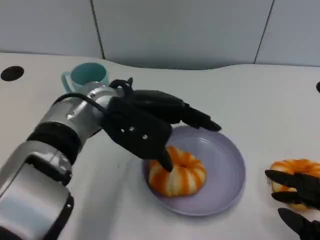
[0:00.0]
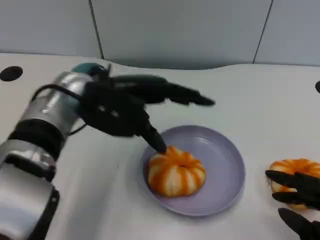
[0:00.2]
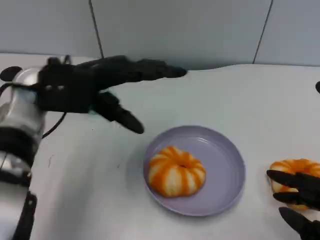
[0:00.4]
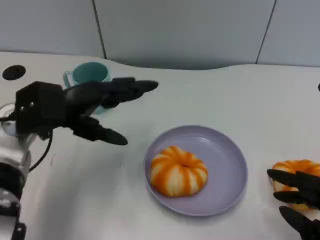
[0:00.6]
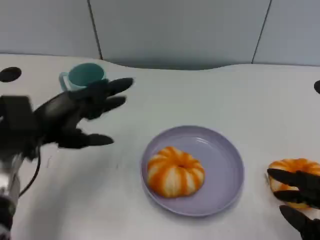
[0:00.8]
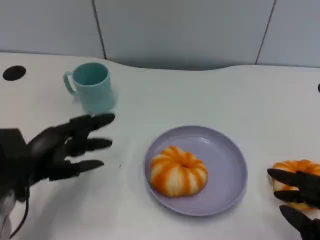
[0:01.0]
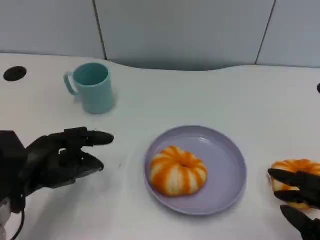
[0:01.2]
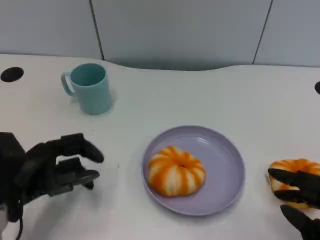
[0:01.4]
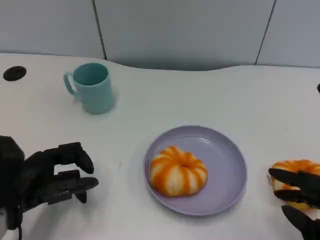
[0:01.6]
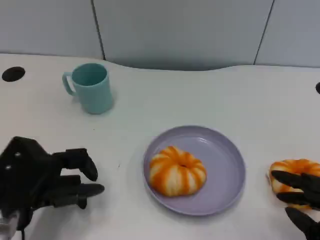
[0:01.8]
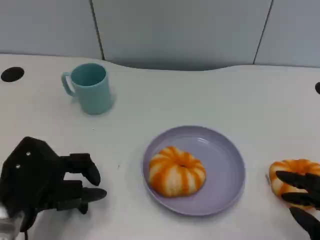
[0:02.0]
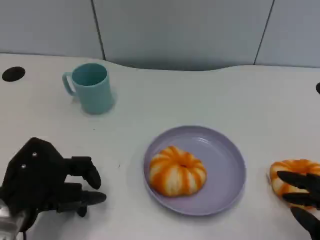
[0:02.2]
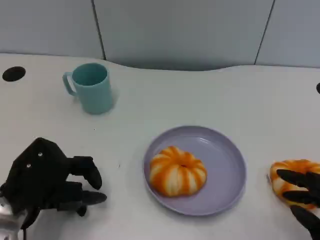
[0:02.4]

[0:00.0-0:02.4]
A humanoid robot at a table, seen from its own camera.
Task of the whole recording: Grasp the bread from the table and place it into the plate.
0:00.0 to 0:01.2: The left hand moves to the left, backward and downward, roughly 20 cm.

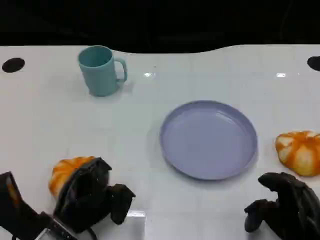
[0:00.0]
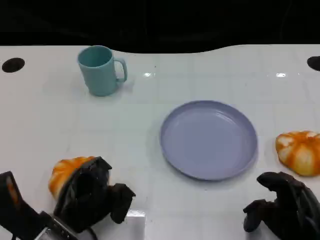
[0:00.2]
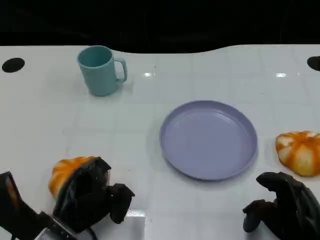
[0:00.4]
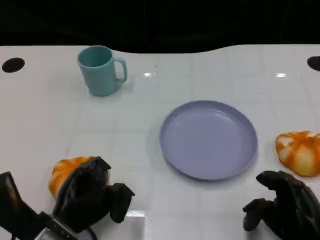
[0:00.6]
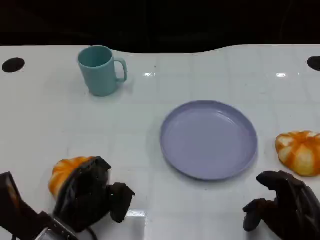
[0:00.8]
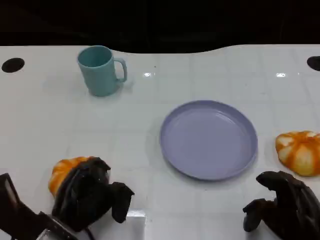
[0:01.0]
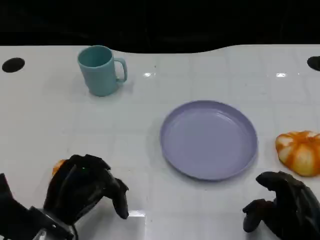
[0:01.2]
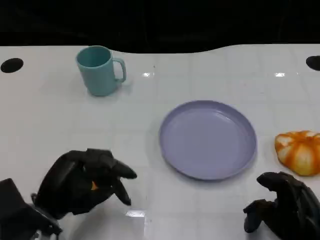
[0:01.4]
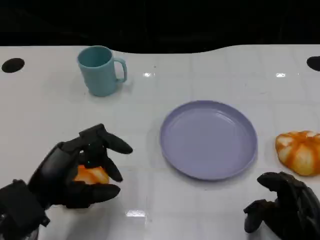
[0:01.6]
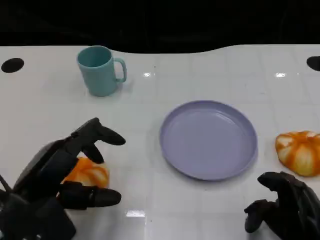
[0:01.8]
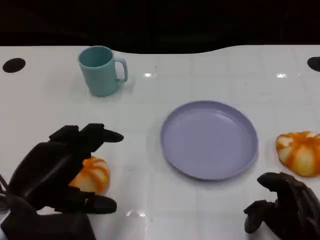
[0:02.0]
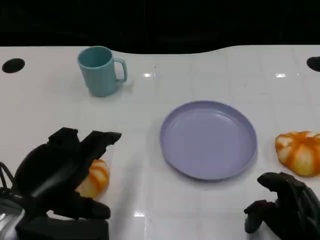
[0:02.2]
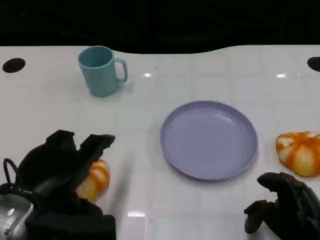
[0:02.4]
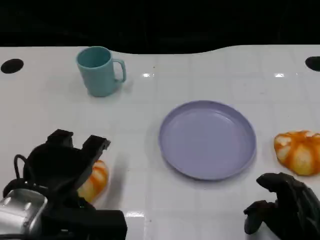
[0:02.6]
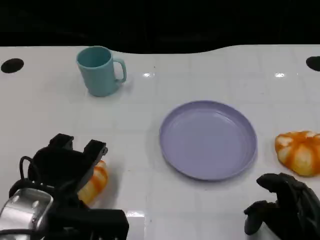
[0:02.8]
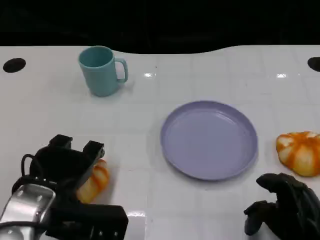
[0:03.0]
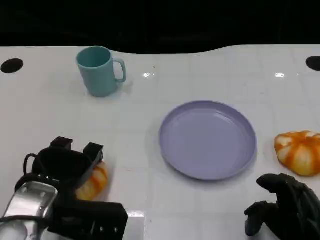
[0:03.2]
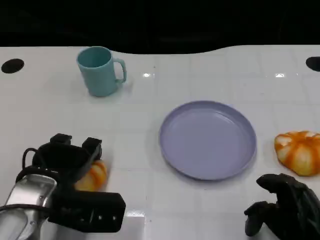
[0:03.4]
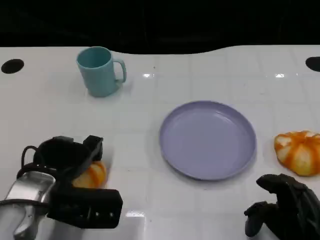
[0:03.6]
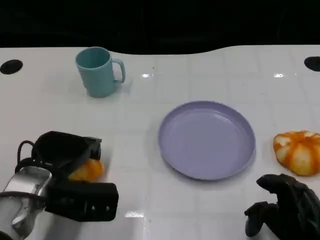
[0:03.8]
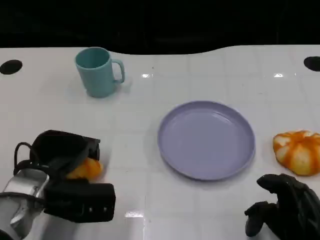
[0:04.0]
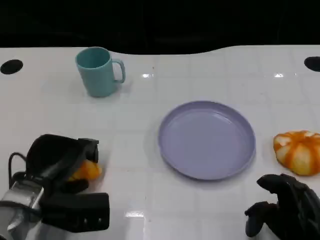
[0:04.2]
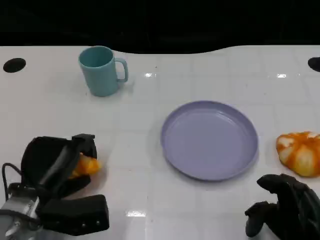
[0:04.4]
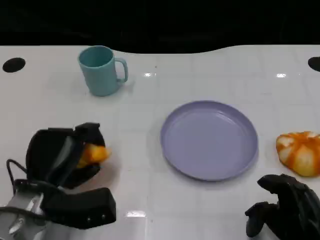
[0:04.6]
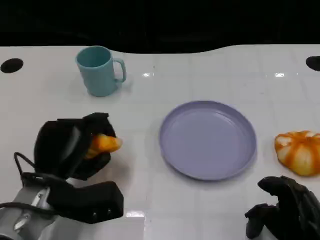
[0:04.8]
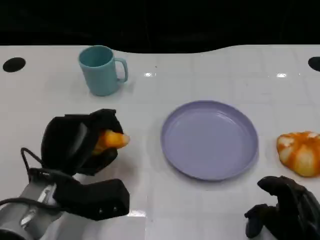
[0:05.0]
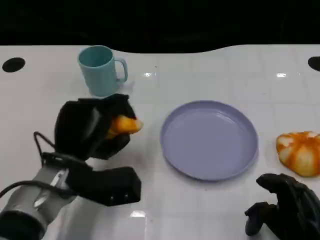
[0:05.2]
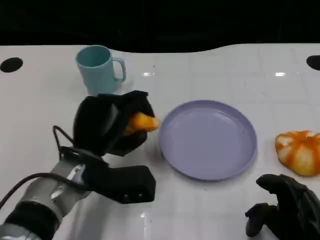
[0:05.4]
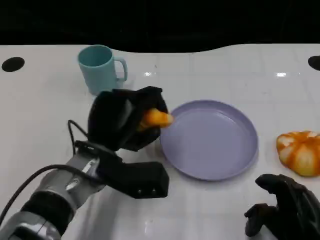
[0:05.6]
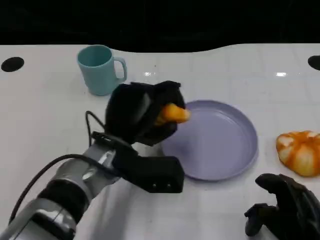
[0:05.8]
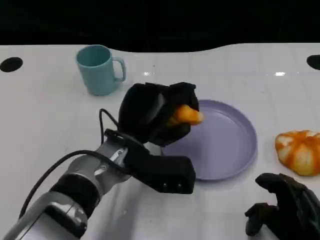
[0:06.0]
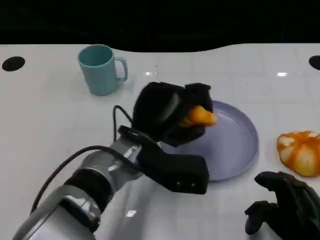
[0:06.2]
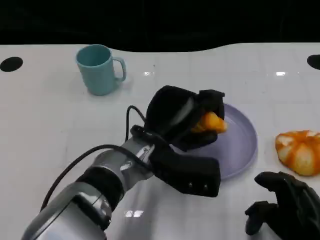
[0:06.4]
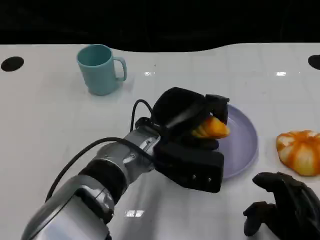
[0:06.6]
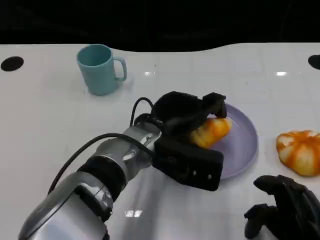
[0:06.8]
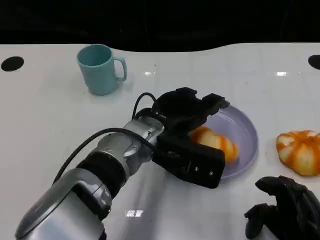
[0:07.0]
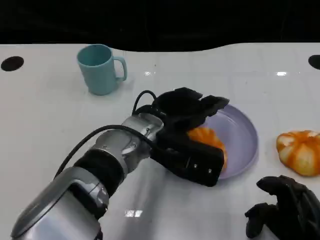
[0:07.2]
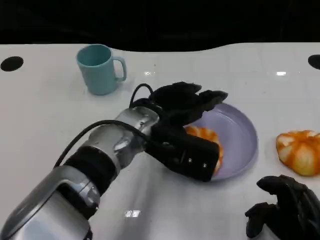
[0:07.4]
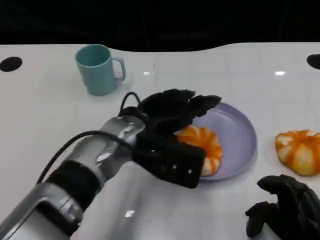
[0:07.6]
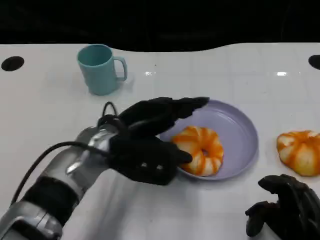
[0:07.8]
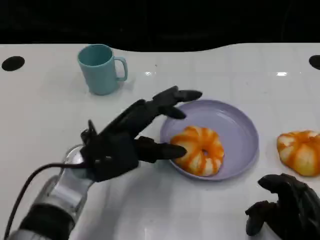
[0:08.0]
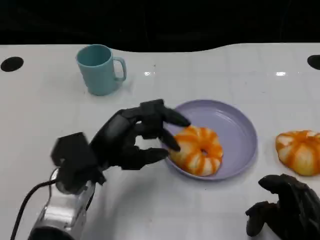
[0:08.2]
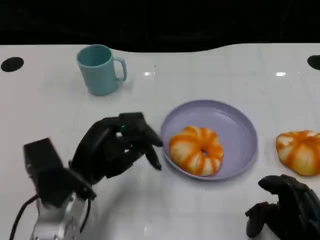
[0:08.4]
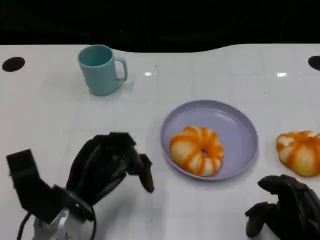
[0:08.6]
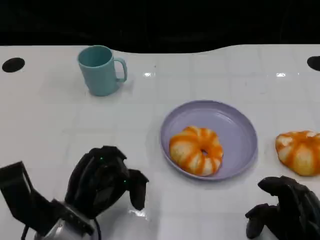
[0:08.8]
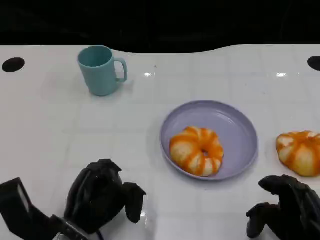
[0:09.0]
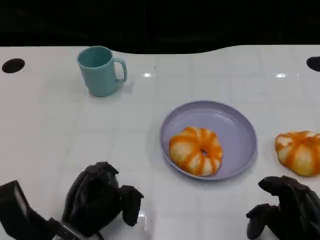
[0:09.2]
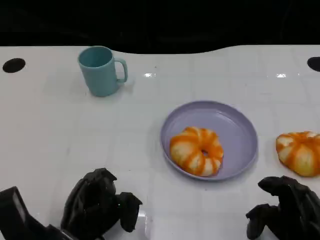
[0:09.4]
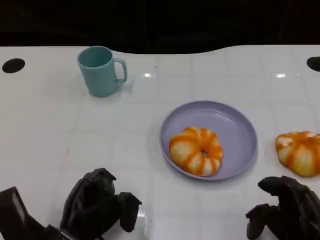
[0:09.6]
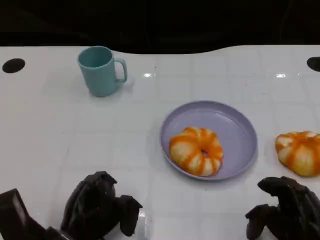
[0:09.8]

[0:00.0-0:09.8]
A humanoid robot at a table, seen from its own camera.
Task of the whole recording: Grasp the bread from the table and place it into the plate.
0:00.0 to 0:01.4: The left hand ends up roughly 5 cm from where it was.
0:02.8 to 0:04.2: The left hand heads downward, covering about 5 cm.
0:04.2 to 0:05.6: The left hand moves to the right, roughly 10 cm.
0:05.6 to 0:07.0: The left hand moves to the right, about 5 cm.
0:07.0 to 0:08.4: The left hand moves to the left, backward and downward, roughly 15 cm.
0:08.4 to 0:09.8: The left hand goes roughly 10 cm downward and backward.

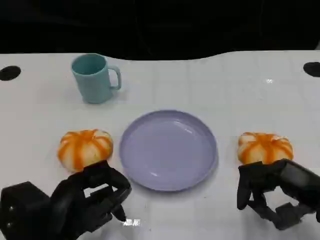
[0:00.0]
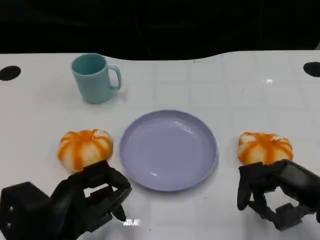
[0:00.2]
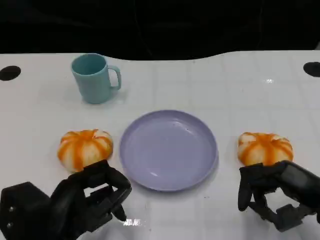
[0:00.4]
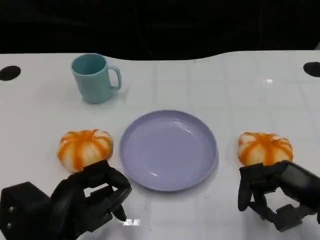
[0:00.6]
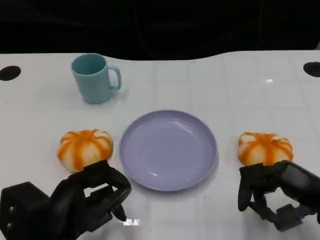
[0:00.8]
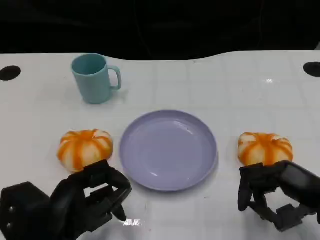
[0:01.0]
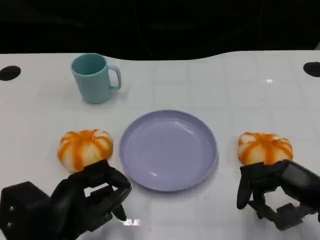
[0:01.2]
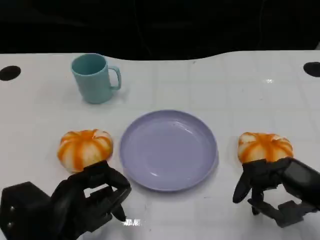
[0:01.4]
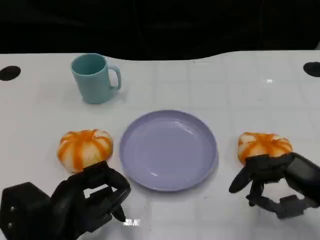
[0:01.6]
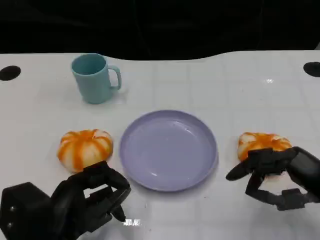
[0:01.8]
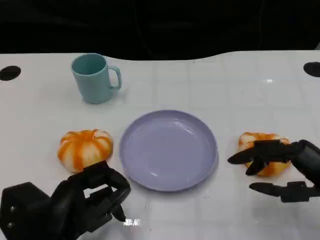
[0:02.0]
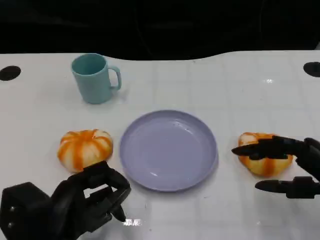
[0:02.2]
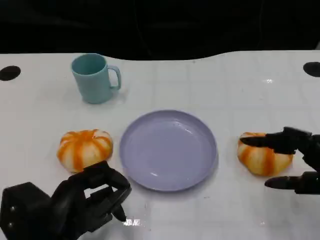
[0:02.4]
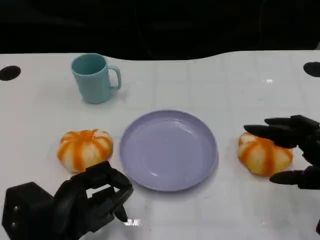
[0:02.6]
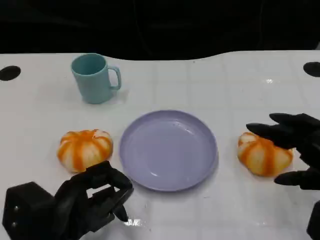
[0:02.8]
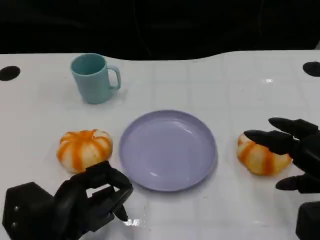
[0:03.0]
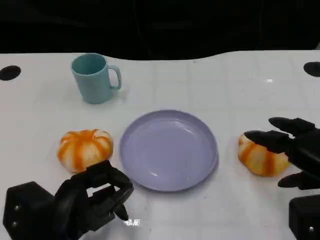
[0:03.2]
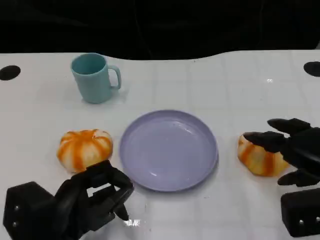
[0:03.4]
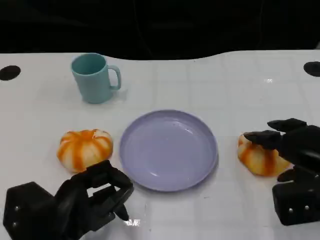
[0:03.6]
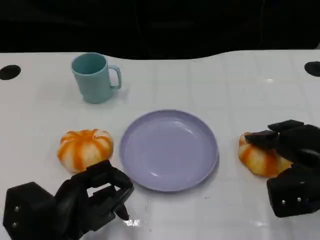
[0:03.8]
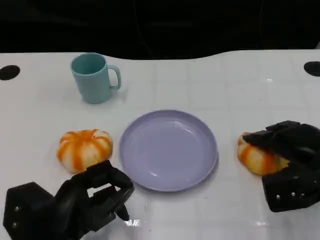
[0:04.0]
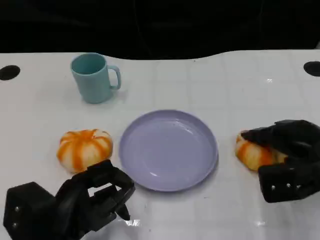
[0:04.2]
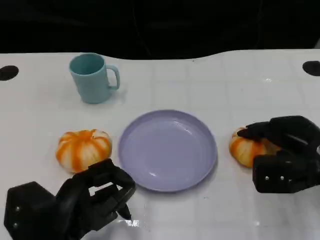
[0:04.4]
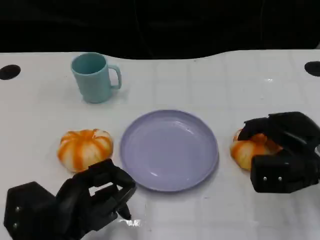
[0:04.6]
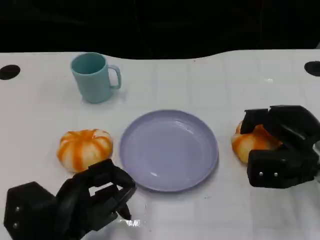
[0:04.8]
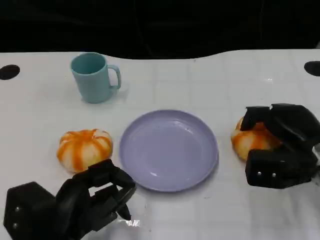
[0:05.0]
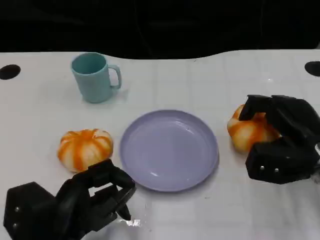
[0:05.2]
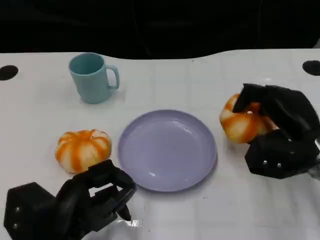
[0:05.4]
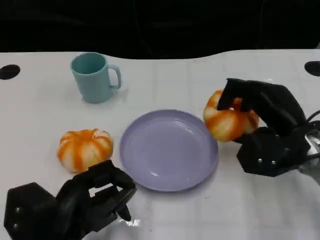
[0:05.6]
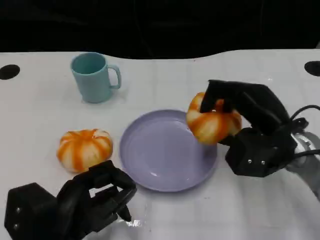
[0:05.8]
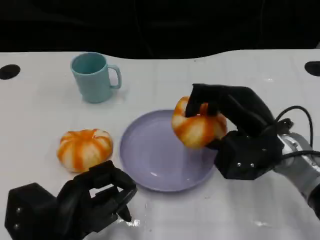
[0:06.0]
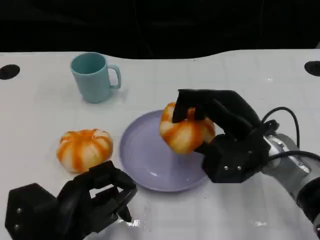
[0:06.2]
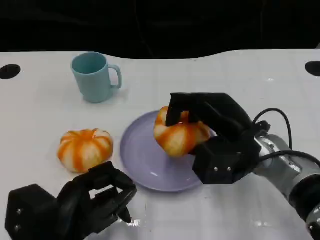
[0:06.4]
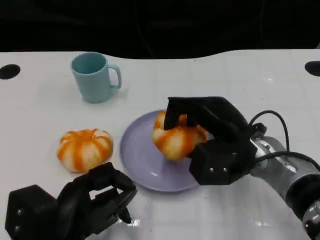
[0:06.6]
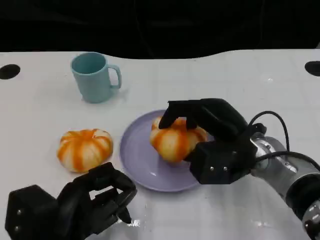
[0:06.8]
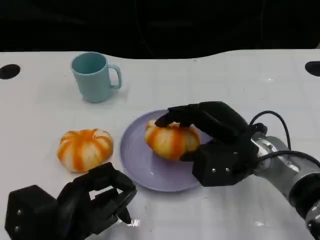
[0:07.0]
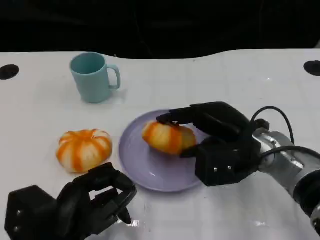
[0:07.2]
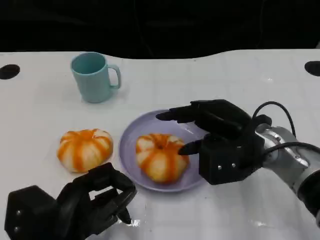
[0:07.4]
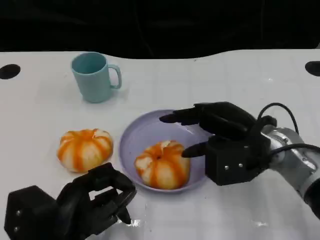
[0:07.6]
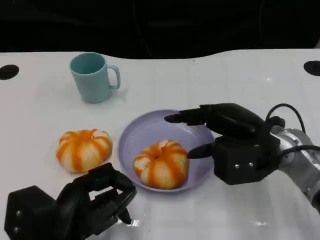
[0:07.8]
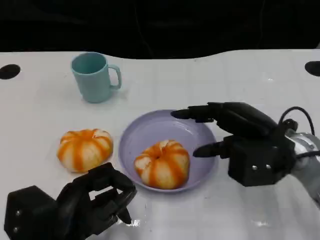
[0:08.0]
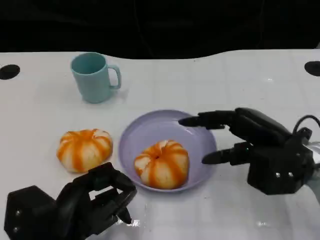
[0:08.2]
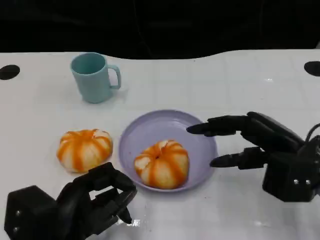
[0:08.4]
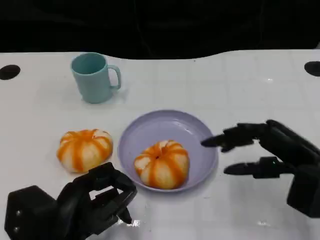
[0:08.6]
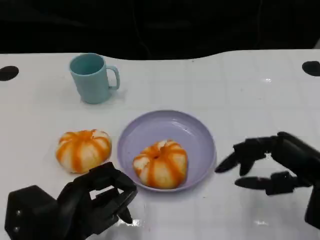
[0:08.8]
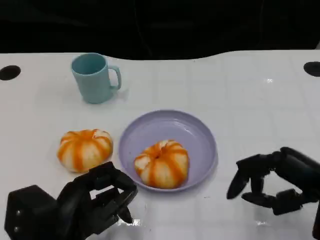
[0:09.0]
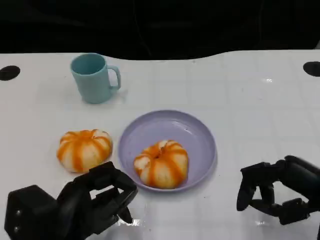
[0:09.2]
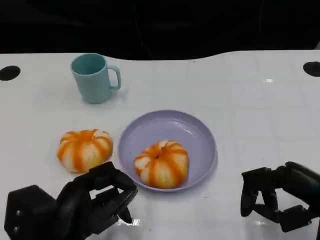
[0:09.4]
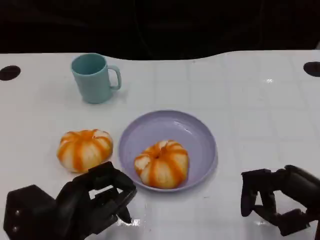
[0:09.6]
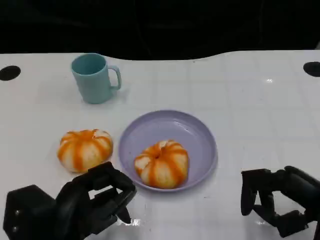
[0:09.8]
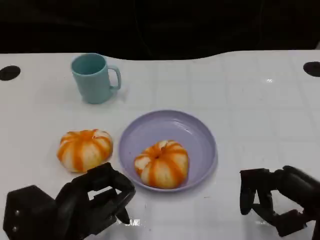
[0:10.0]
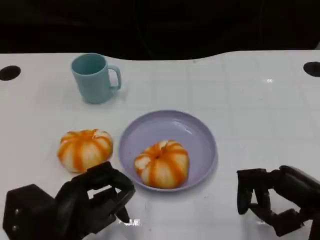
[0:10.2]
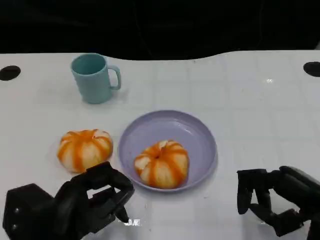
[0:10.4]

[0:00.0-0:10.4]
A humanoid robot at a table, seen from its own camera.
Task of the whole recording: Grasp the bread from the table and place it into the plate.
0:00.0 to 0:01.4: The two hands keep their place.
0:03.0 to 0:04.4: The right hand moves forward, about 10 cm.
0:04.4 to 0:06.0: The right hand travels to the left by some 10 cm.
0:06.0 to 0:07.4: There are only small adjustments of the hands.
0:07.4 to 0:09.0: The right hand is displaced to the right and backward by approximately 15 cm.
0:09.0 to 0:10.4: The hands stay close to where they were, moving slightly.
